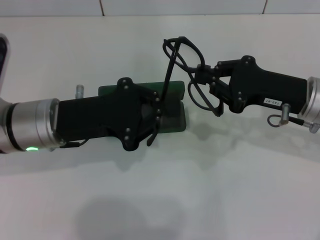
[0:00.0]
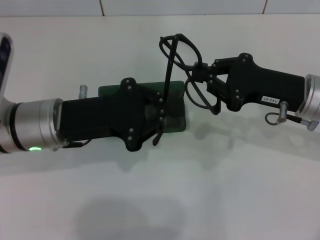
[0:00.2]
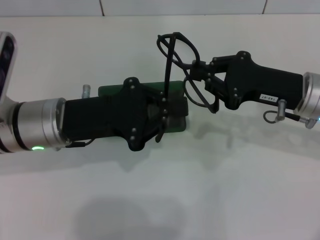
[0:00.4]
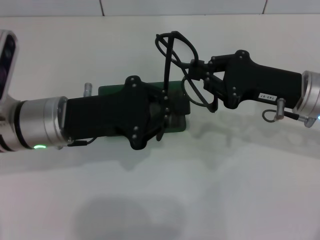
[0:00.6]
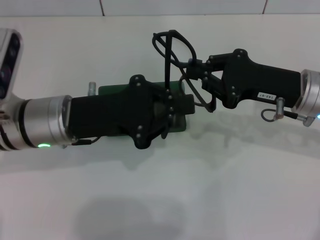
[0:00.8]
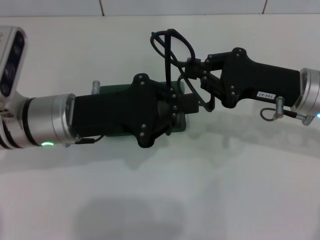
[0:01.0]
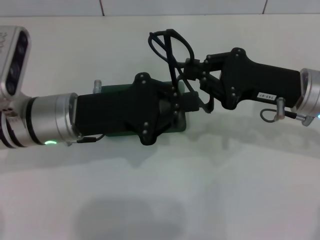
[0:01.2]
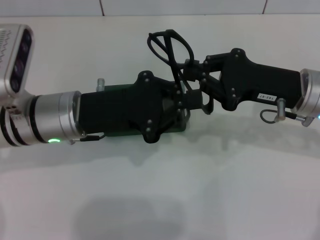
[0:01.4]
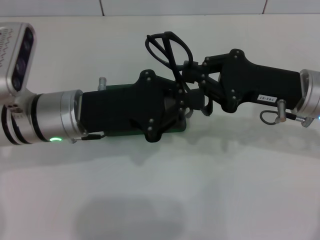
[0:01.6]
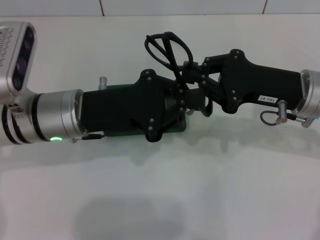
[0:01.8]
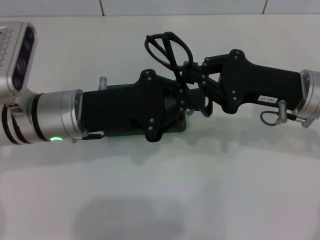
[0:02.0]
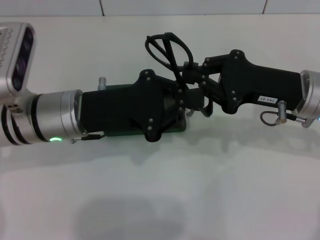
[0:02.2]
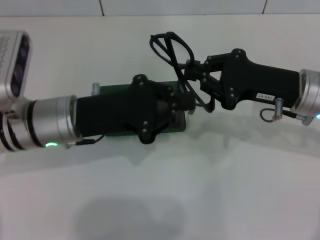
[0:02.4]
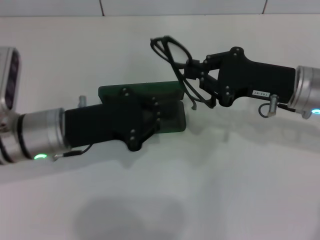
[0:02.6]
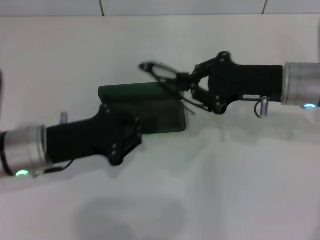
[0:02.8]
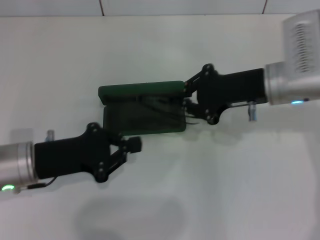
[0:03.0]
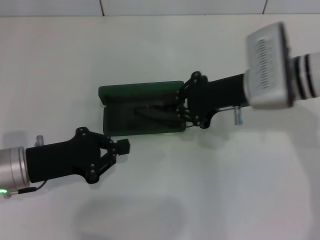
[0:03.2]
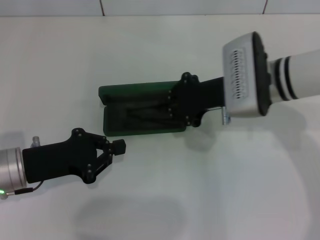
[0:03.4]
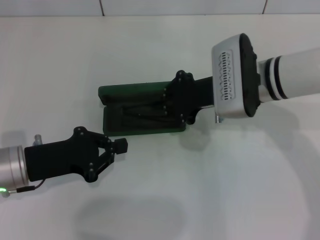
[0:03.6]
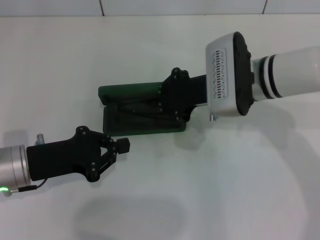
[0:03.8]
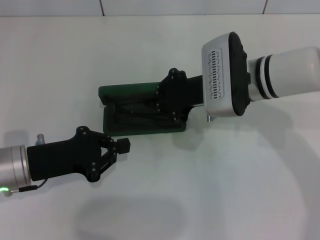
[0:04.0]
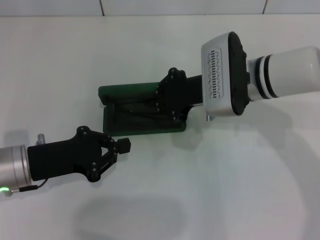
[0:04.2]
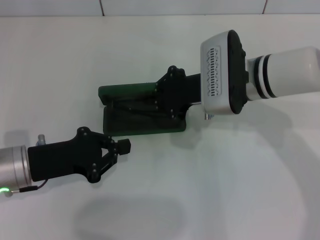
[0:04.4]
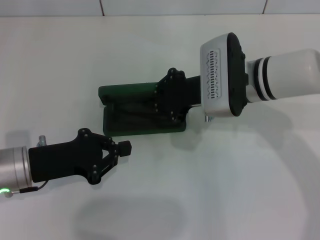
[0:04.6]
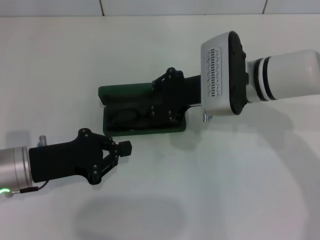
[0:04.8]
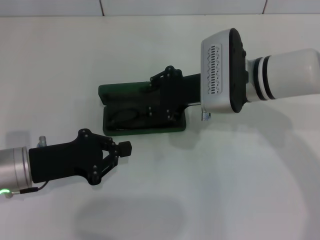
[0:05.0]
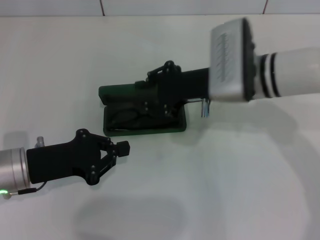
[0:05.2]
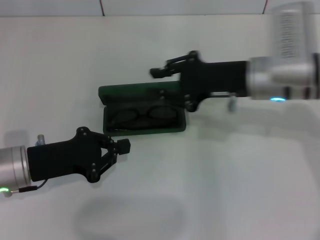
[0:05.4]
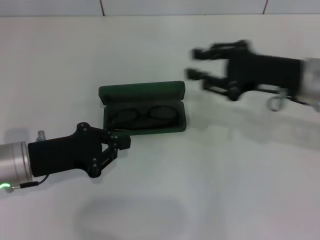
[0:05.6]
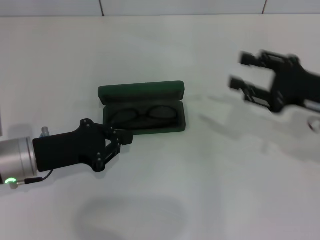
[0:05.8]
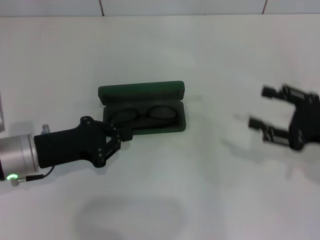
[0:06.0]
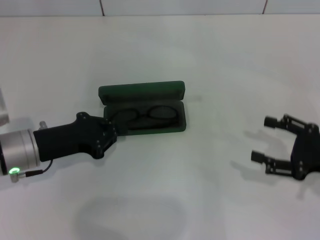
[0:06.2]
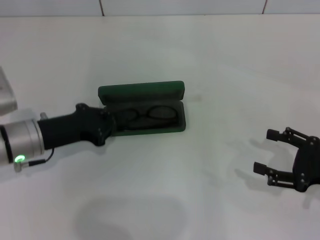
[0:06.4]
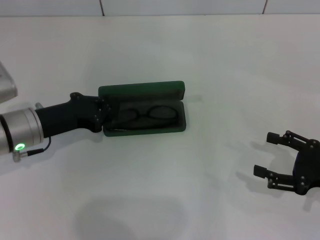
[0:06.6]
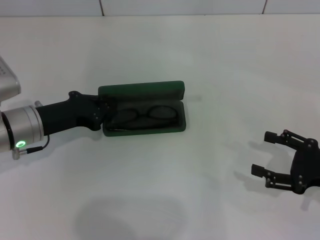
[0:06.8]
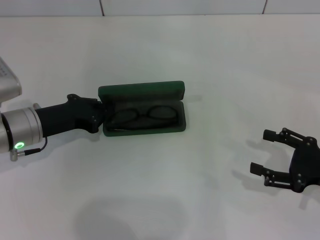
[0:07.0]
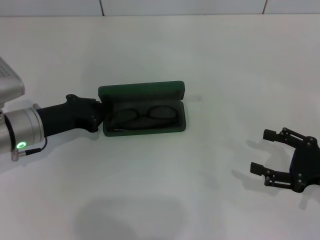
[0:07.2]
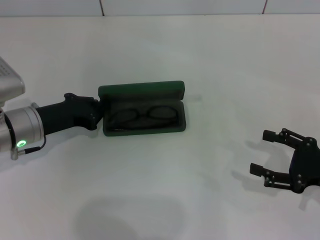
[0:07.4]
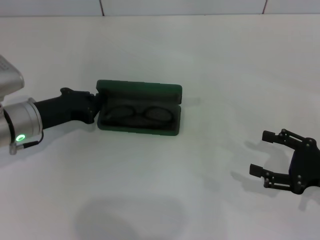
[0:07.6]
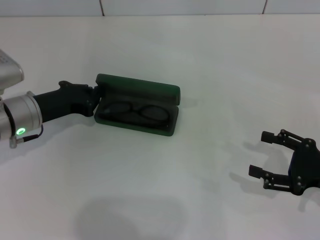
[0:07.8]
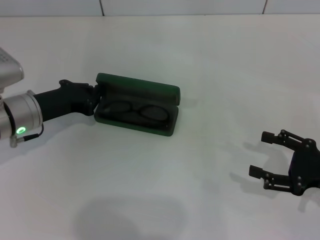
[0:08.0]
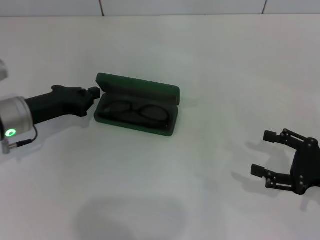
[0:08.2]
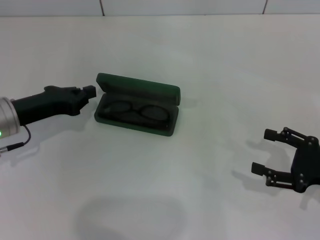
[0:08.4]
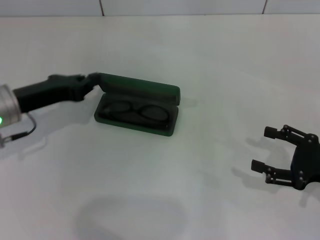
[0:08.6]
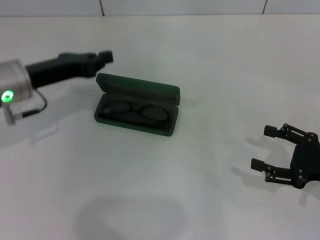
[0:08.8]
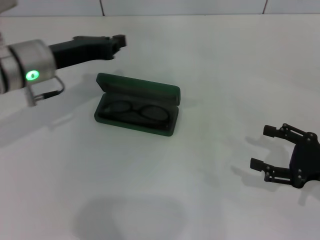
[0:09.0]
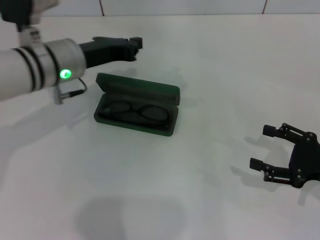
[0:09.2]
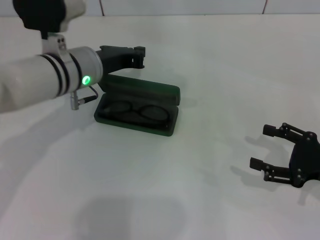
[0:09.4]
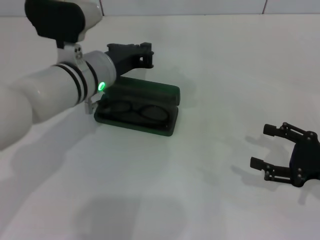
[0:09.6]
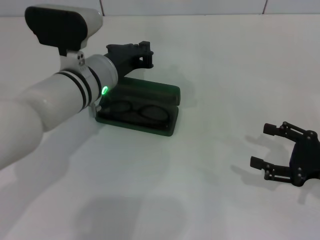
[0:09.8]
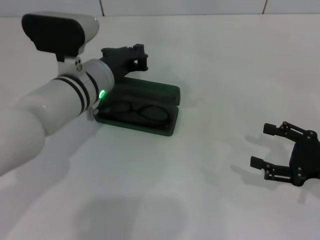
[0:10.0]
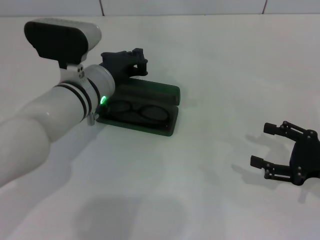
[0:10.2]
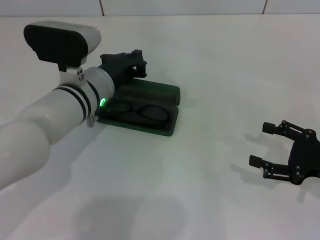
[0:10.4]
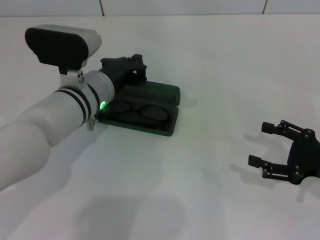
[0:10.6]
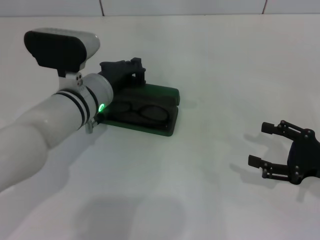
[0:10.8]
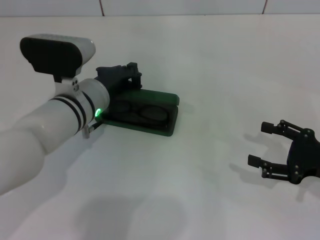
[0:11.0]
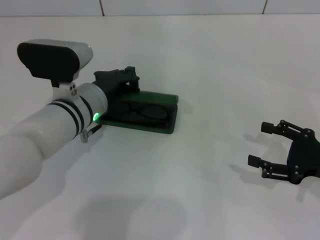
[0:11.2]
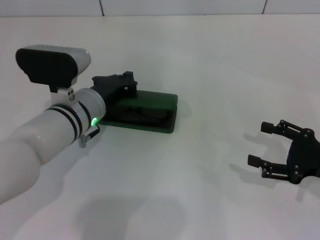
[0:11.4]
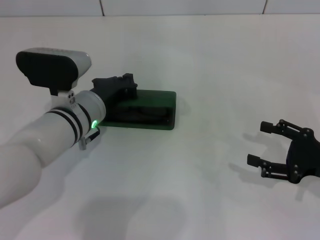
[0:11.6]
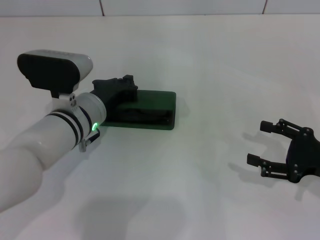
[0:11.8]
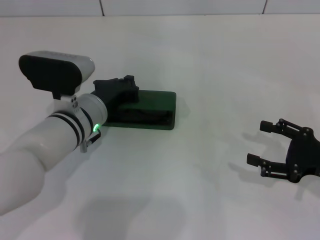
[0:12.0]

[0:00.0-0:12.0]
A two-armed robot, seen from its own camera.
Step, 0:00.0 to 0:02.0: Fold the frame with your left hand.
Step, 0:02.4 to 0:05.0: Put the glasses into the case with your right hand.
0:00.0 to 0:01.6: There are only small adjustments of the grippers.
0:01.6 to 0:03.0: The left gripper is displaced to the left by roughly 5 cm.
0:03.0 to 0:04.4: The right gripper moves to the left, roughly 5 cm.
0:04.4 to 0:06.0: The right gripper travels to the right and backward by roughly 20 cm, and opens.
0:06.0 to 0:07.6: The right gripper changes place by roughly 5 cm, and opens its fingers; the left gripper heads forward, covering approximately 5 cm.
0:07.6 to 0:09.0: The left gripper shifts approximately 10 cm upward.
0:09.0 to 0:10.4: The left gripper moves to the right and downward, approximately 10 cm.
0:10.4 to 0:12.0: The grippers make only small movements.

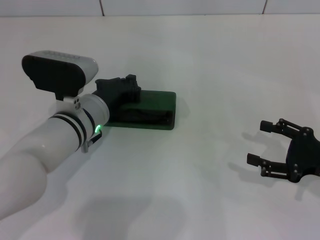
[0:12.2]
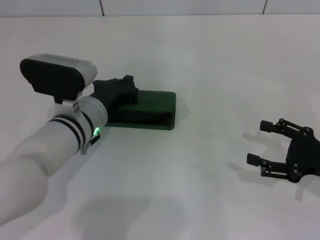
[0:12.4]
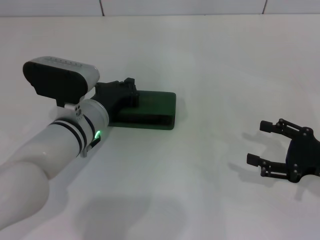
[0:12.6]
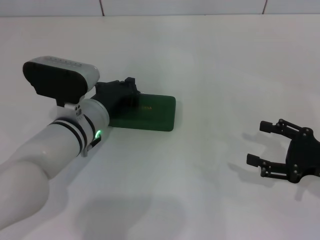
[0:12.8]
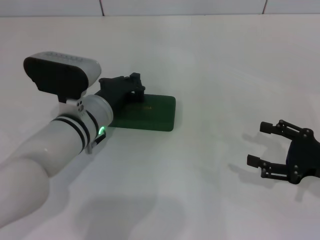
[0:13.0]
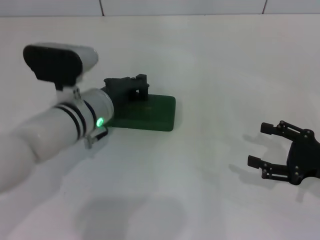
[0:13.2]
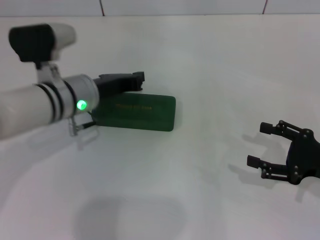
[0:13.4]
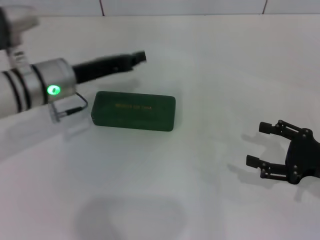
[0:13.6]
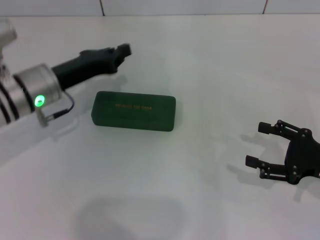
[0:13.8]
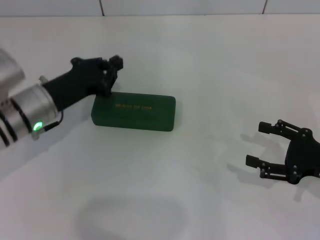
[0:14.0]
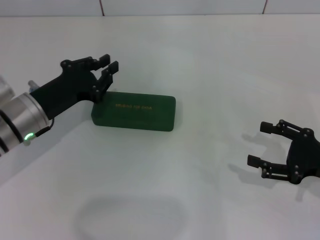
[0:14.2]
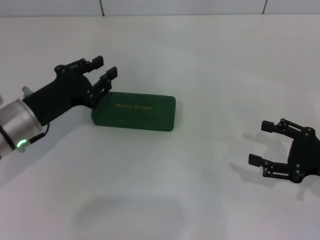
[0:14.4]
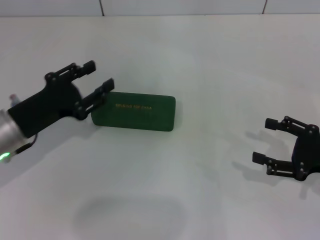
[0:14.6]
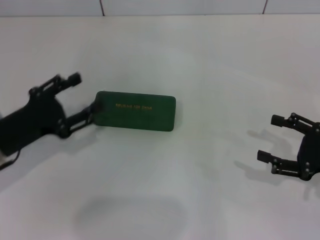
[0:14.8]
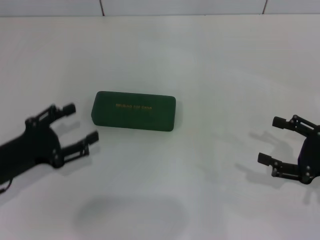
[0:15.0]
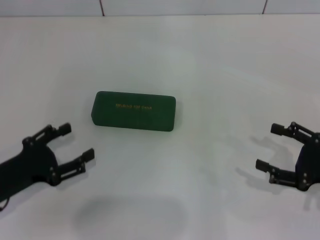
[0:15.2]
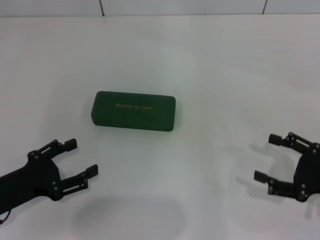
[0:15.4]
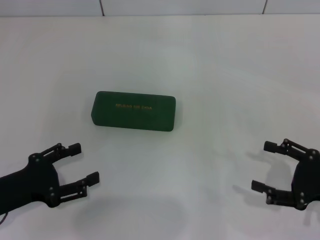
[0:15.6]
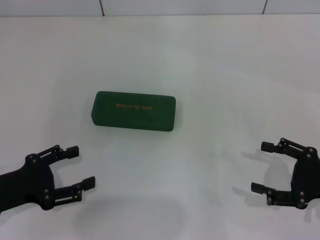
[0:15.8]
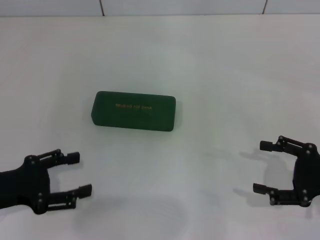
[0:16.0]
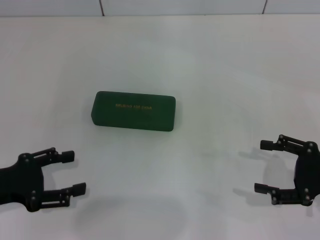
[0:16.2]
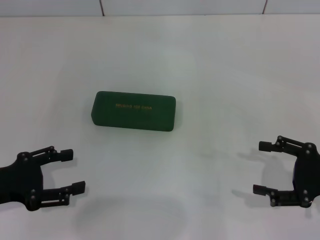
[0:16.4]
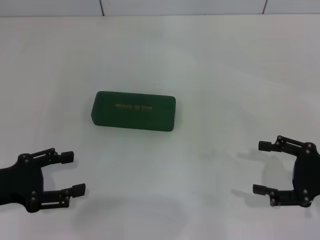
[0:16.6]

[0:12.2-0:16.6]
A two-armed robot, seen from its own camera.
0:12.2 to 0:13.6: The left gripper travels to the left and upward by about 10 cm.
0:13.6 to 0:15.2: The left gripper goes roughly 20 cm backward, to the left and downward, and opens up.

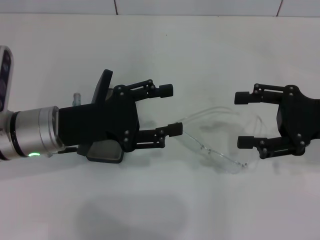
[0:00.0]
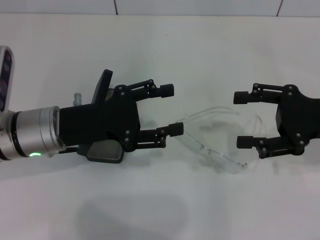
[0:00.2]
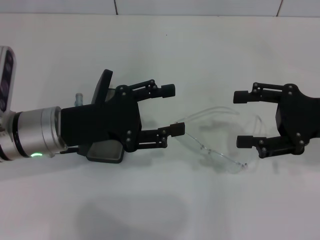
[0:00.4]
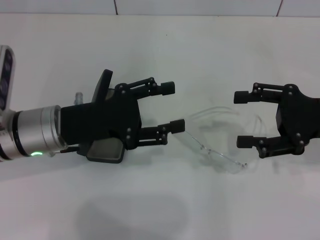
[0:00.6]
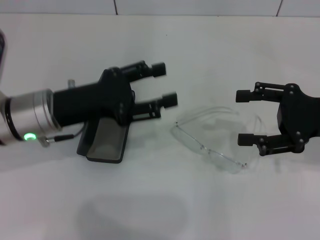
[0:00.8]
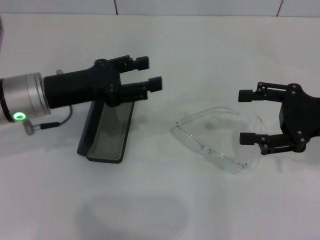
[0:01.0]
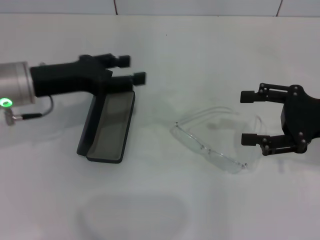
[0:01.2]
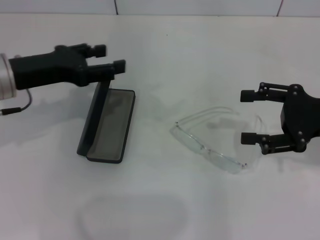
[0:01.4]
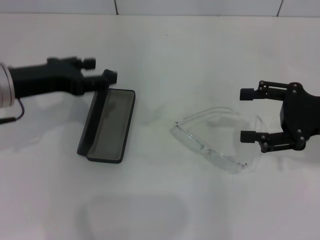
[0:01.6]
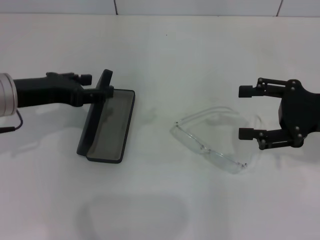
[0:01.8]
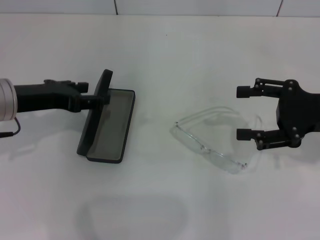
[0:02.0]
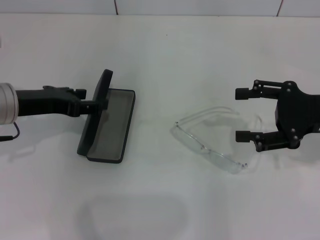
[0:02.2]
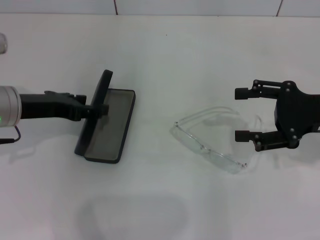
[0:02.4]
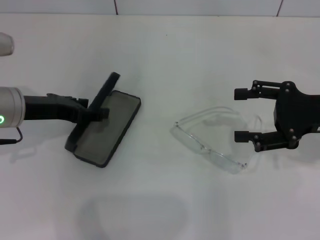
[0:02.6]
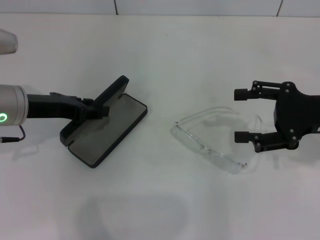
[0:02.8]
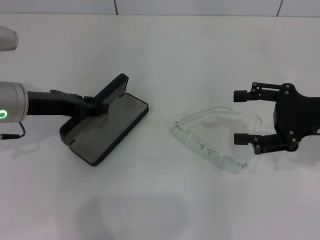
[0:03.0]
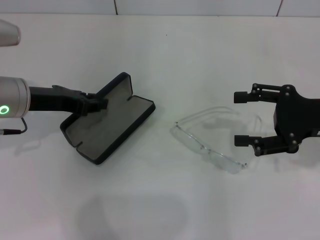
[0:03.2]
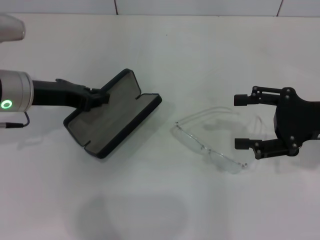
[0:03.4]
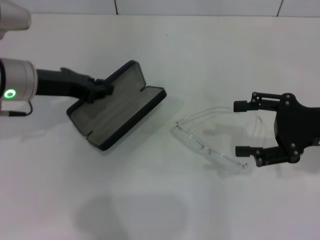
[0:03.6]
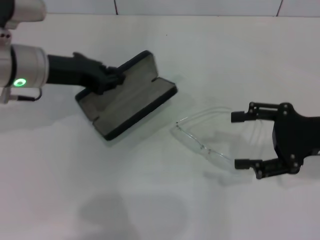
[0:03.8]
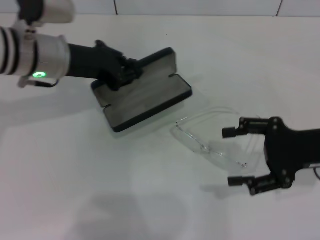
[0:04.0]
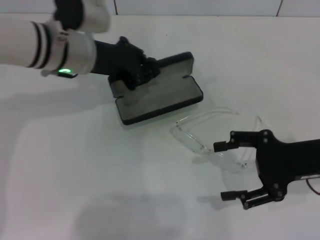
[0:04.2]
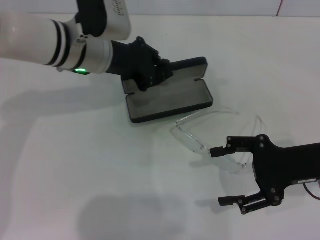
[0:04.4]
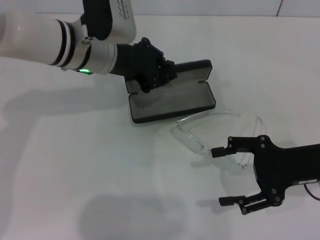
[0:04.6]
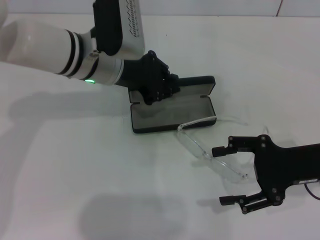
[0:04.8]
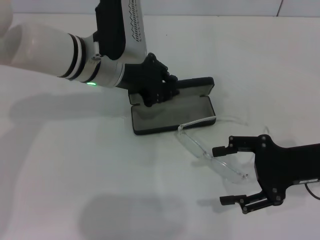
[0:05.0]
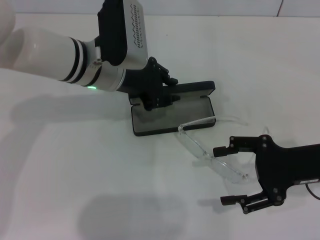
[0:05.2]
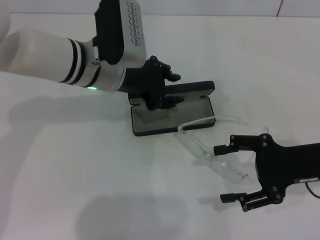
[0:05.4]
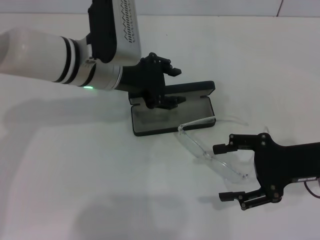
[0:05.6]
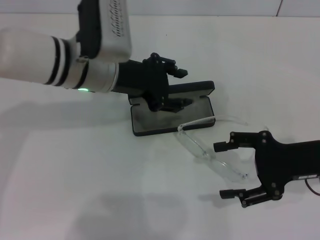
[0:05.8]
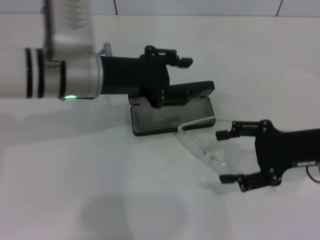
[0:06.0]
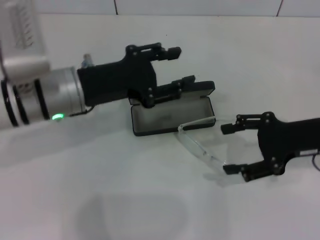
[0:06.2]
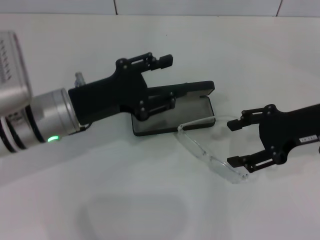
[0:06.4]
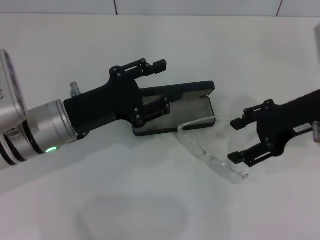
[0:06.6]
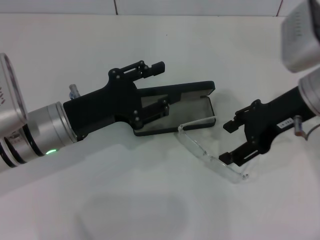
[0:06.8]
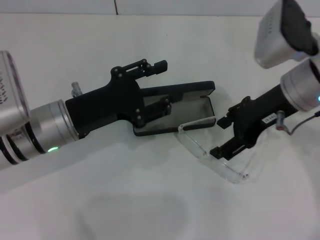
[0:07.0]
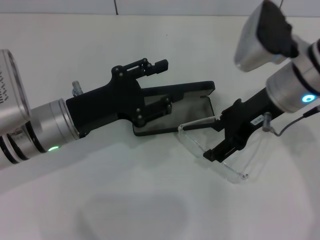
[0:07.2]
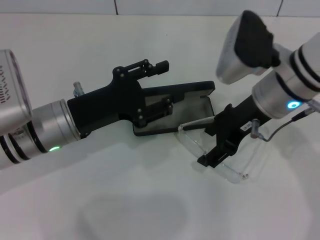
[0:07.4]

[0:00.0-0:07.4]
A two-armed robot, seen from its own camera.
Step, 0:00.0 to 0:03.0: Grab the glasses case with your left hand.
Step, 0:03.2 to 0:05.2: Place the glasses case in the center of the table with your left hand.
0:00.0 to 0:01.4: The left gripper heads upward and to the left, covering about 10 cm.
0:01.4 to 0:03.0: The left gripper closes up.
0:03.0 to 0:04.4: The left gripper shifts roughly 15 cm to the right and forward, and closes; the right gripper changes place by about 5 cm.
0:04.4 to 0:06.0: The left gripper shifts approximately 5 cm backward, and opens its fingers.
0:06.0 to 0:07.4: The right gripper travels to the left, upward and forward by about 15 cm. Meanwhile the left gripper goes about 10 cm downward and backward.
